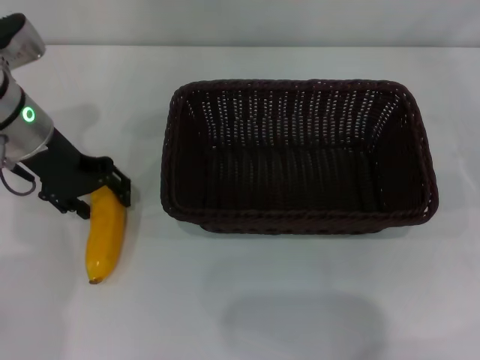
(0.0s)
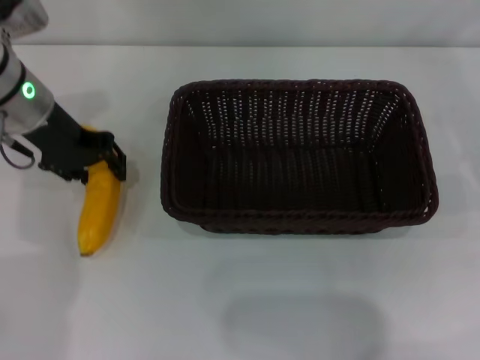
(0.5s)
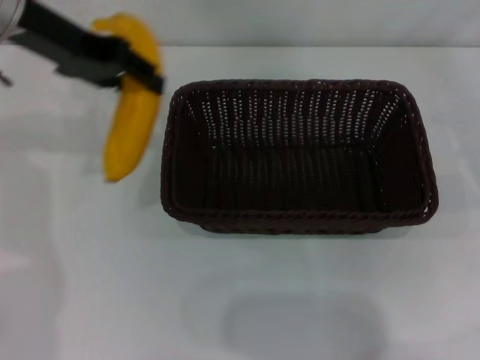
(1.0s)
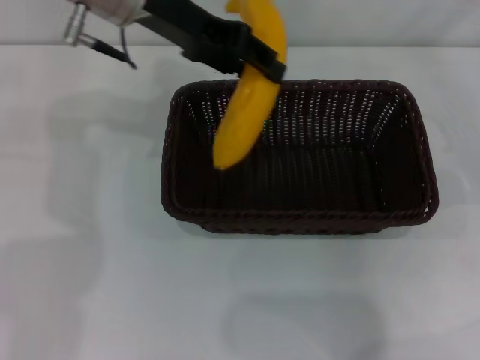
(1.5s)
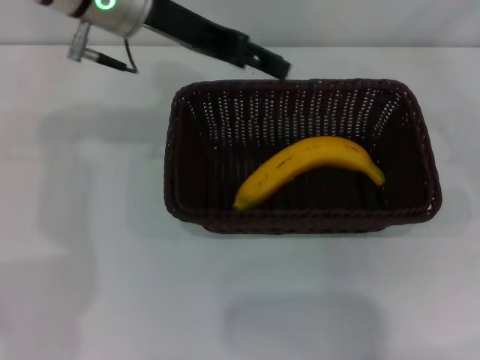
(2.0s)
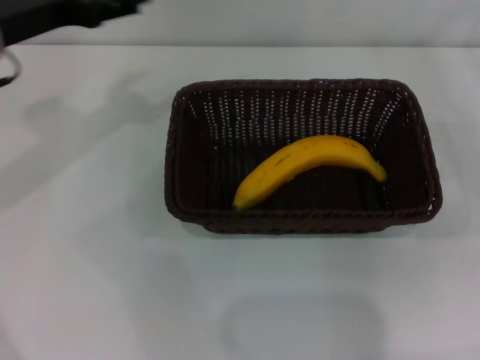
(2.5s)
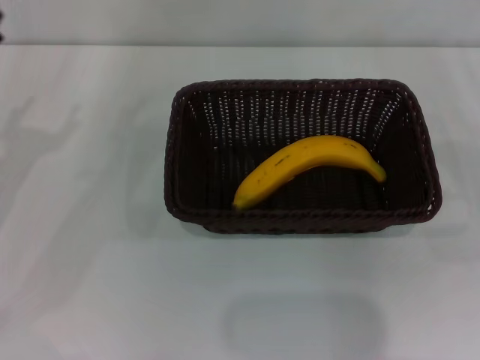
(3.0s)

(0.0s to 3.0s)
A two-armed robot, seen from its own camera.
Step, 1.0s - 2.0s: Place the banana into the dark basket with the left gripper.
0.0s - 1.5s: The left gripper shifts roughly 15 cm upward and to the right, and closes up.
1.5s - 3.0s: The right gripper is displaced backward by some 5 cm. Meanwhile the left gripper is displaced to the left, downward and backward by about 30 cm, and opens.
